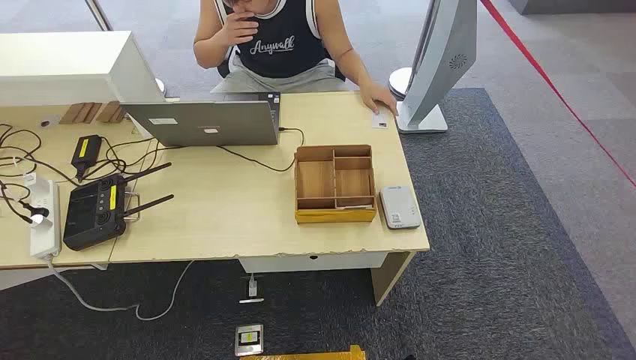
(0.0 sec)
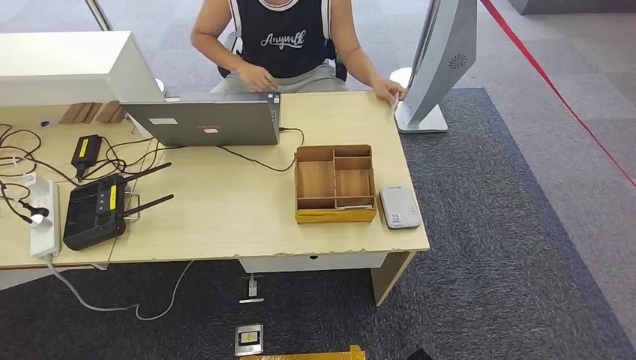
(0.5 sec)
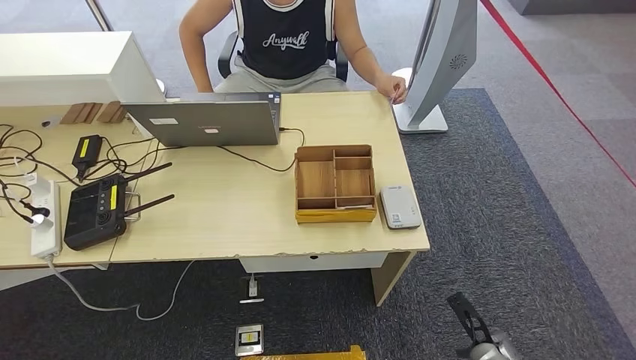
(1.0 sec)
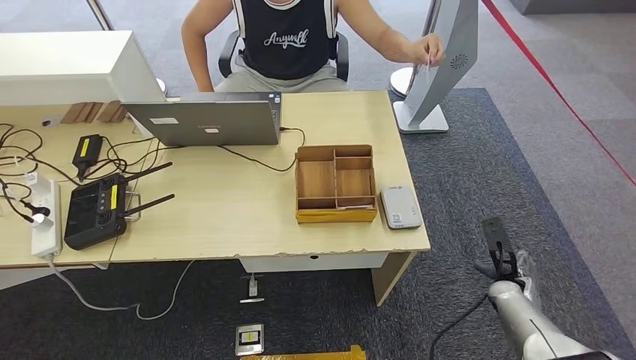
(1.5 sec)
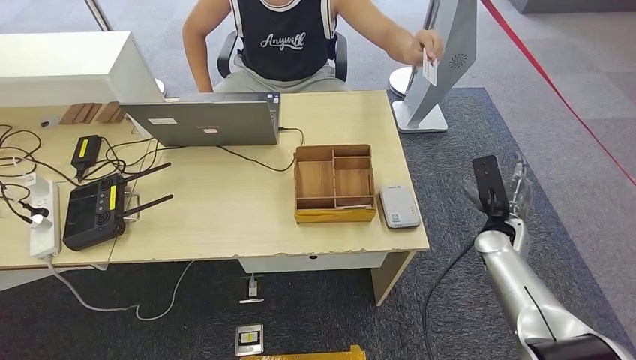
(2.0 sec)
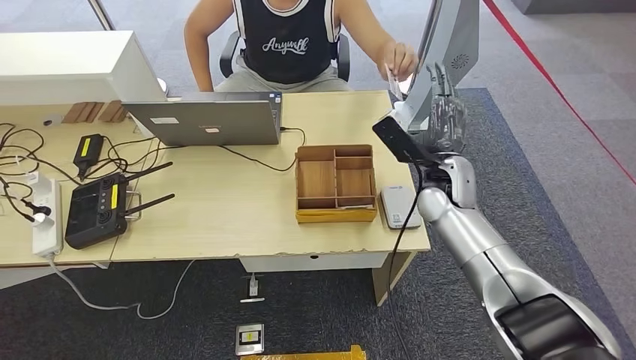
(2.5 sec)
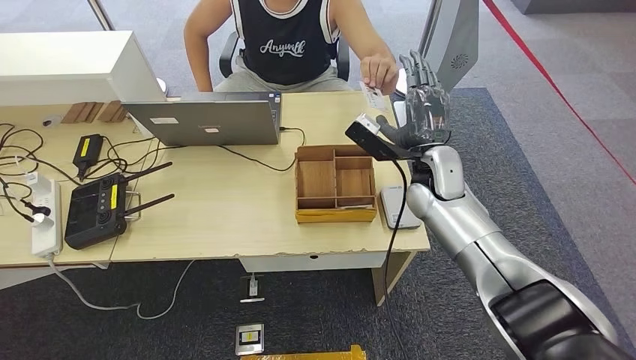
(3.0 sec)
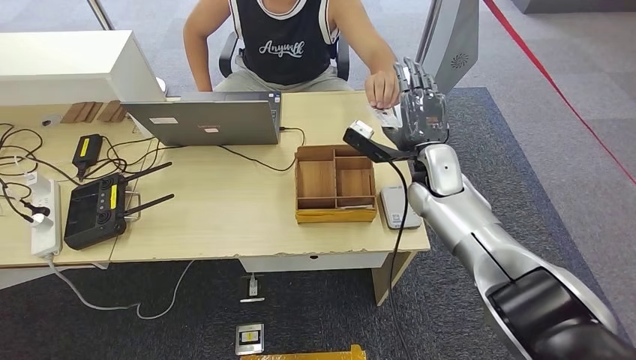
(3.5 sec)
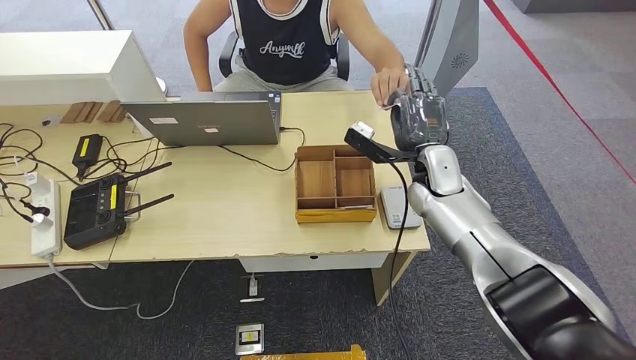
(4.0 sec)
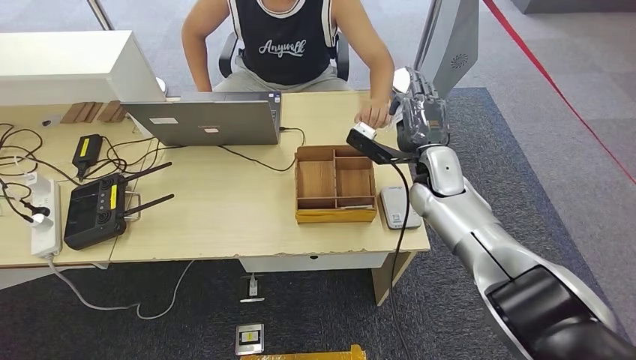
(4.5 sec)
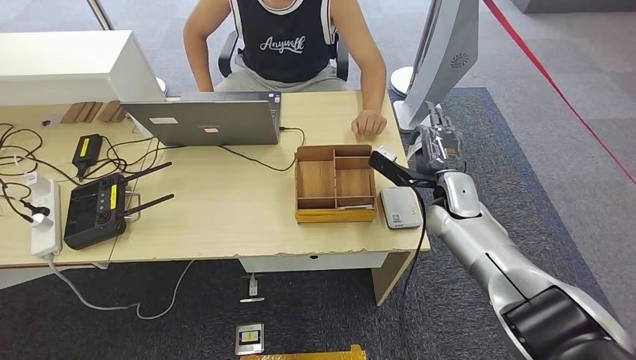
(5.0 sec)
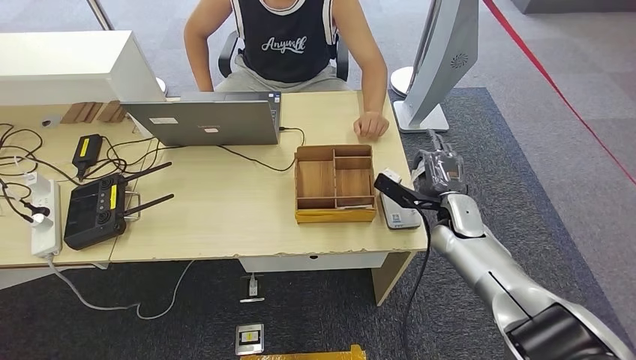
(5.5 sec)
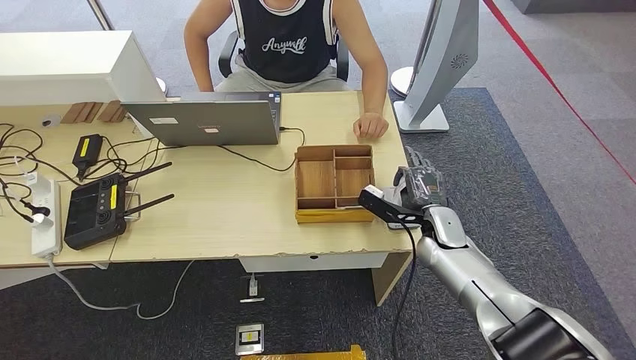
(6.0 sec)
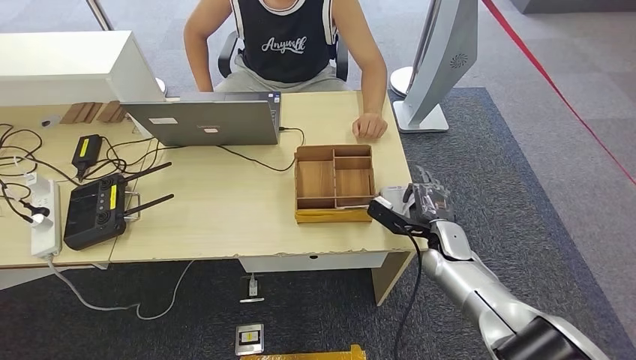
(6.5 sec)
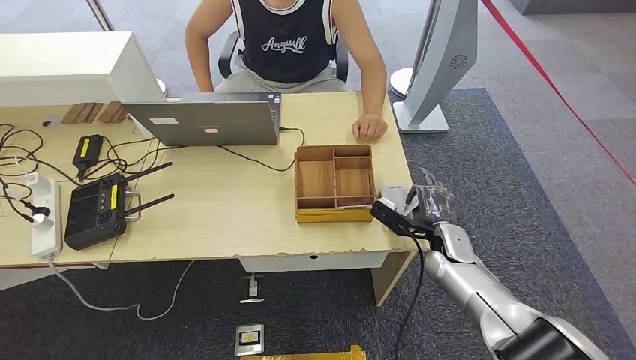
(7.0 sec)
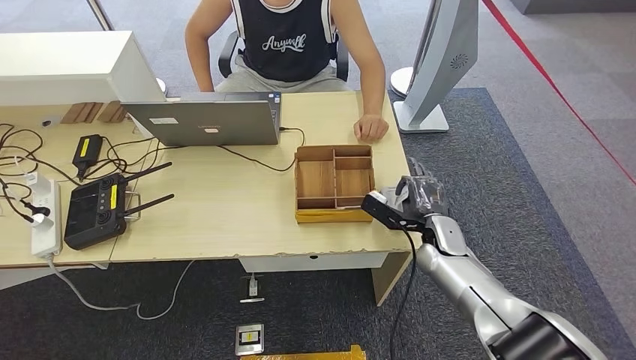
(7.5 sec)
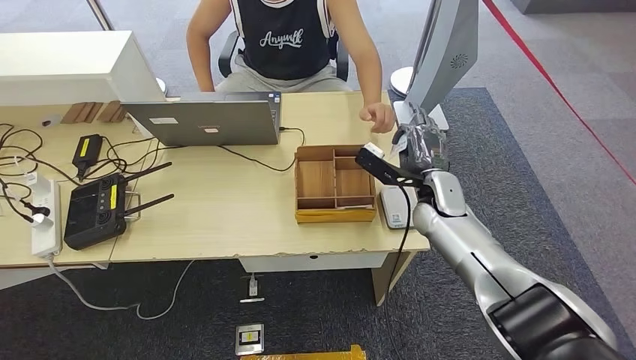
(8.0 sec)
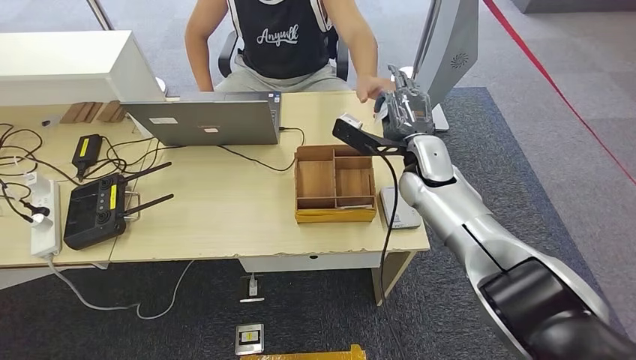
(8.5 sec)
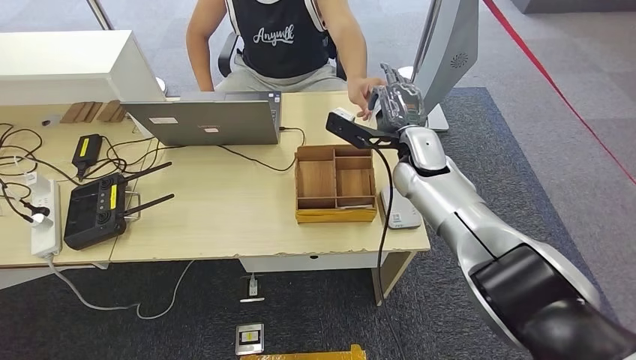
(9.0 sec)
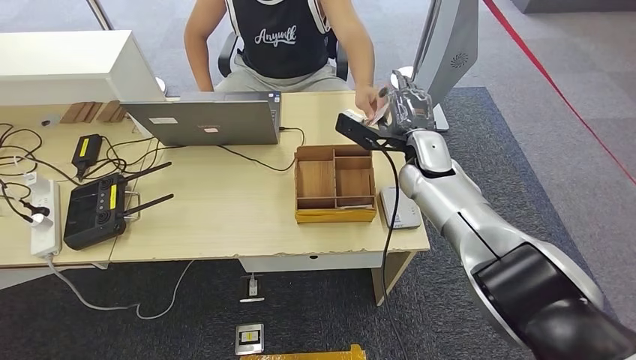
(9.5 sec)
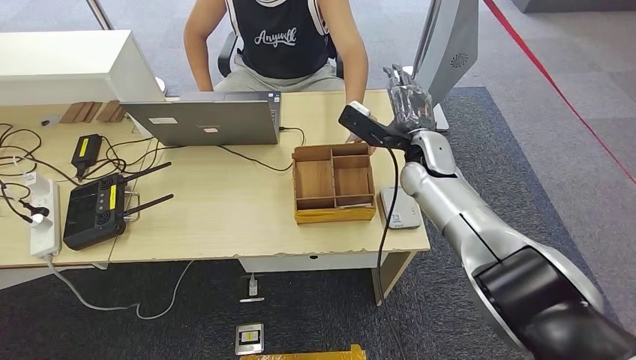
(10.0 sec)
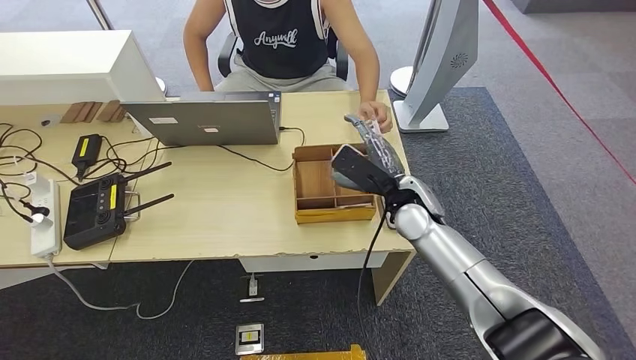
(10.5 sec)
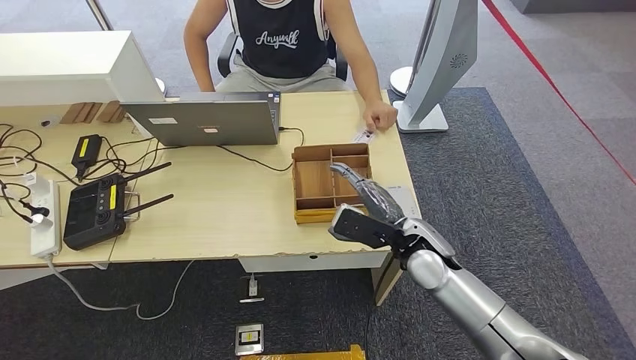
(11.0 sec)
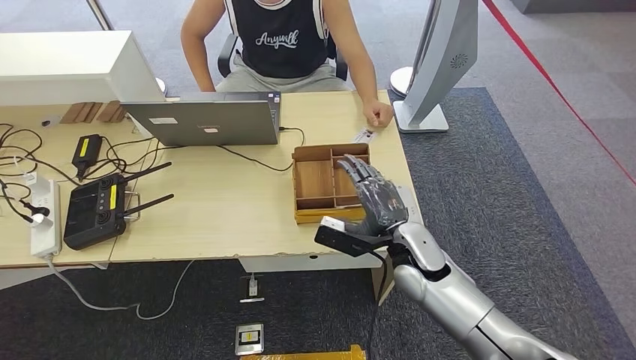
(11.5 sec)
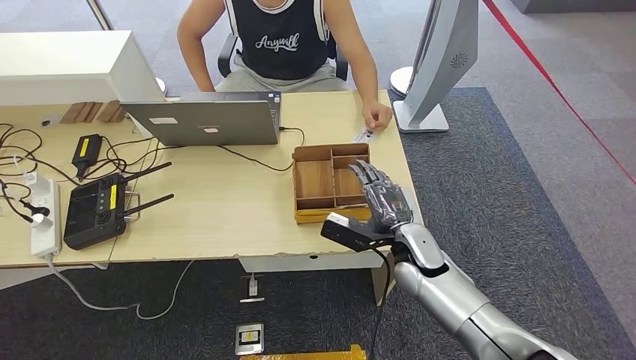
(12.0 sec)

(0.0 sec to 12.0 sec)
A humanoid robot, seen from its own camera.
Step, 0.0 sec - 5.0 sec: Take the ID card from the person's hand.
Step, 5.5 sec - 7.0 sec: Place the ID card on the card reader.
Step, 8.0 sec - 9.5 sec: Hand the ID card to the person.
2.0 sec - 4.0 sec: The right hand heads to the left, upward and forward, covering some 20 cm.
4.0 sec - 6.0 sec: The right hand is displaced downward and backward by about 15 cm.
6.0 sec - 8.0 sec: The right hand is displaced upward by roughly 5 cm.
8.0 sec - 10.0 sec: The right hand is displaced upward by approximately 5 cm.
10.0 sec - 12.0 sec: The right hand moves backward and downward, some 15 cm.

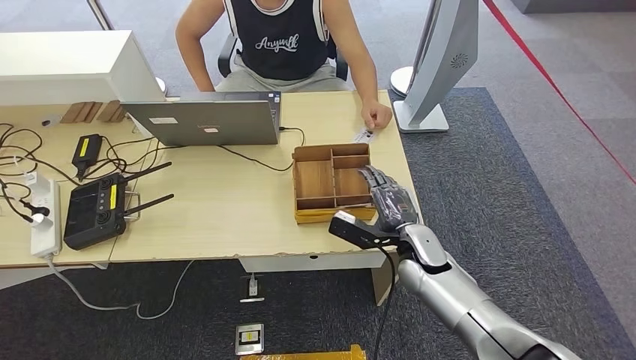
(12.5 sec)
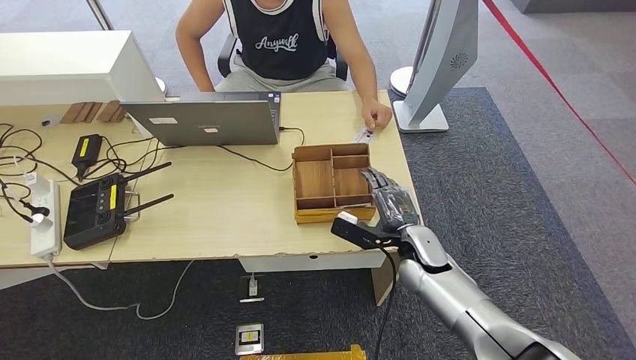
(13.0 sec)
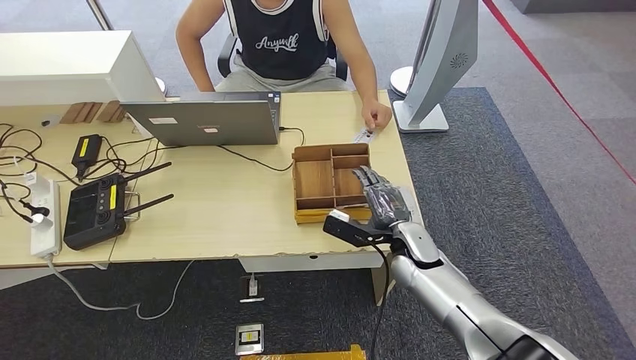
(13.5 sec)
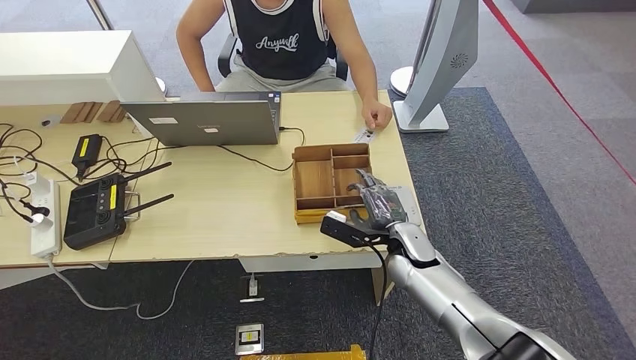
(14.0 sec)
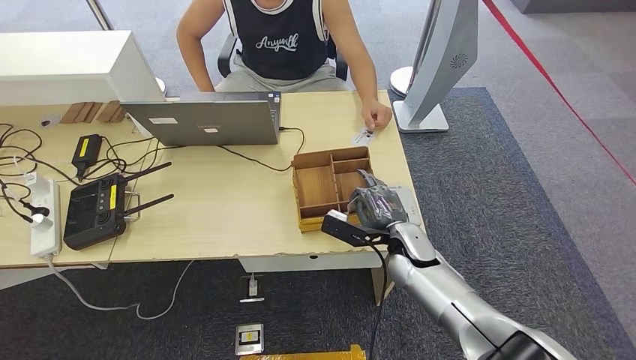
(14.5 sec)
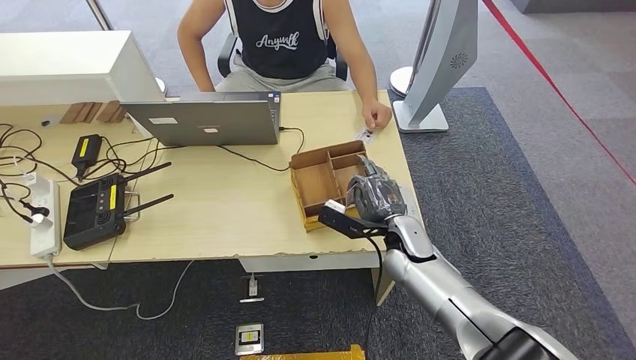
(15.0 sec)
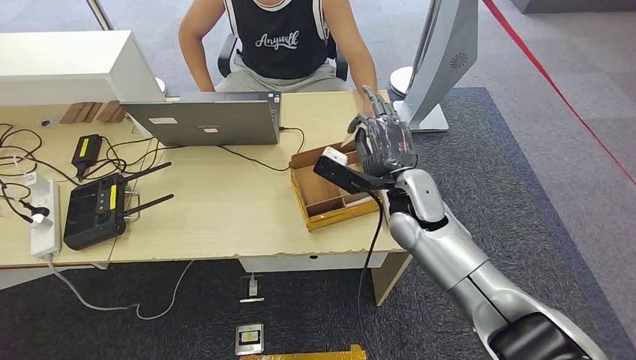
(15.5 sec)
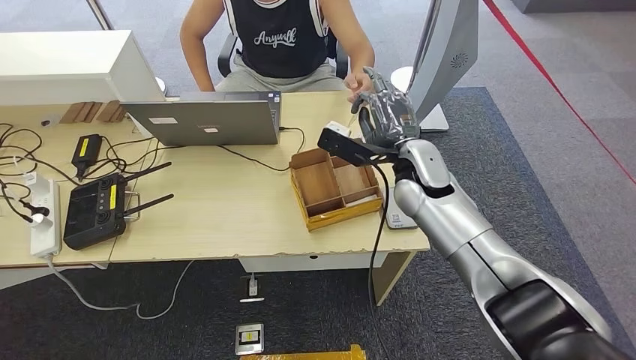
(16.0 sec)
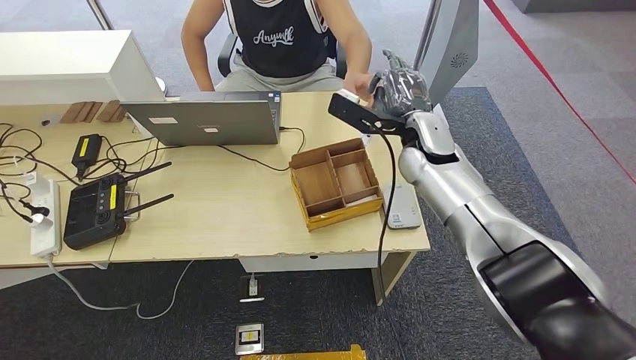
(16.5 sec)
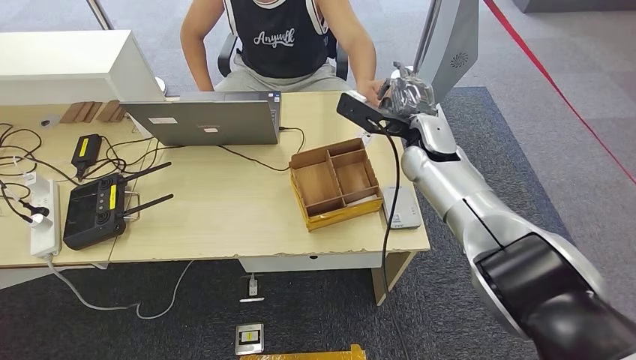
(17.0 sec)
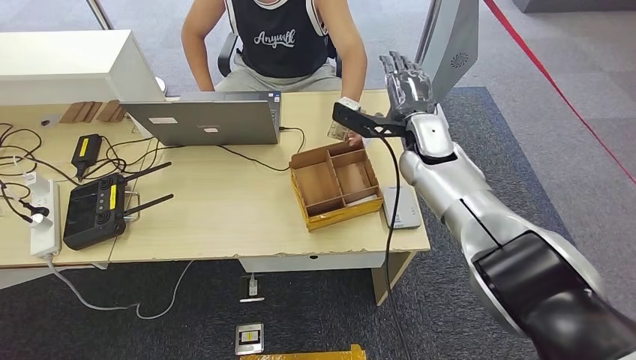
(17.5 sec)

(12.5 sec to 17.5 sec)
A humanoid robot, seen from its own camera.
Step, 12.5 sec - 15.0 sec: Pick up the room key from the key card box.
Step, 15.5 sec - 17.5 sec: Hand the room key to the person.
12.5 sec - 15.0 sec: The hands make only small movements.
15.0 sec - 17.5 sec: The right hand moves upward and forward, some 20 cm.
